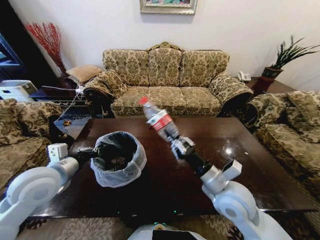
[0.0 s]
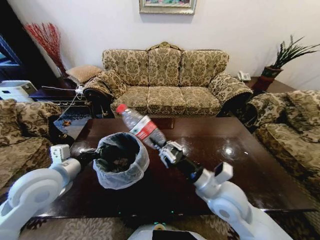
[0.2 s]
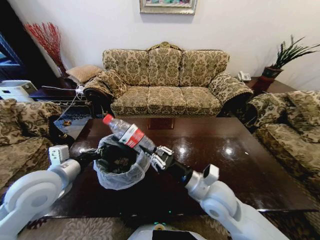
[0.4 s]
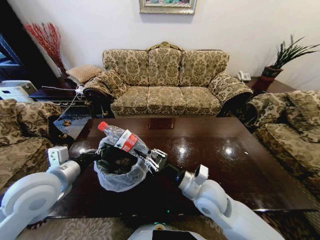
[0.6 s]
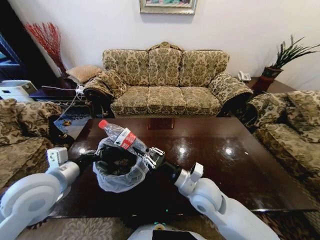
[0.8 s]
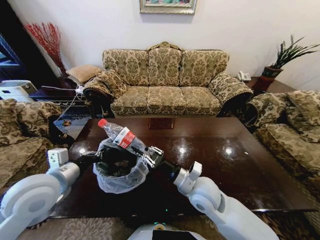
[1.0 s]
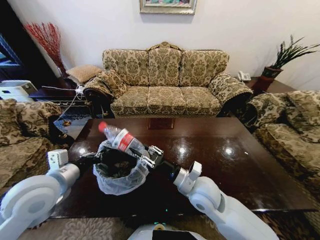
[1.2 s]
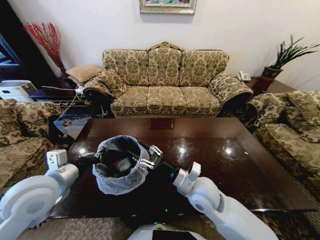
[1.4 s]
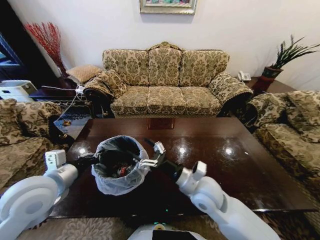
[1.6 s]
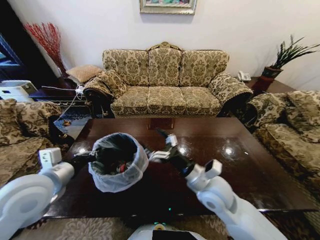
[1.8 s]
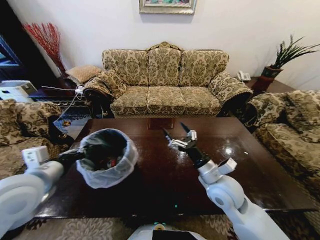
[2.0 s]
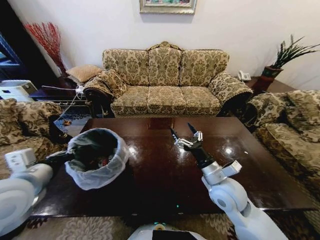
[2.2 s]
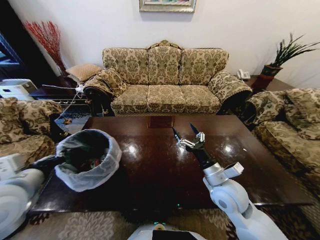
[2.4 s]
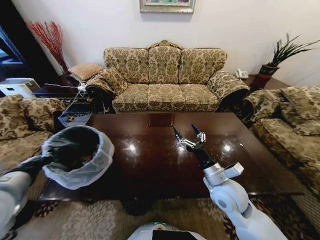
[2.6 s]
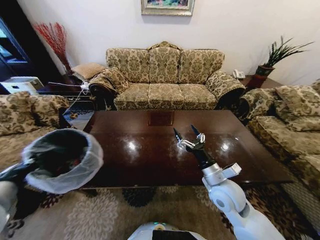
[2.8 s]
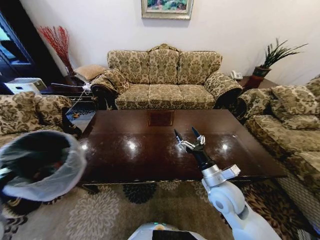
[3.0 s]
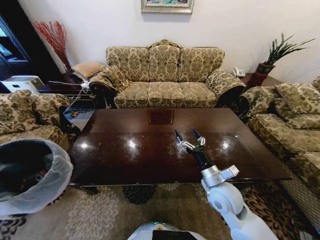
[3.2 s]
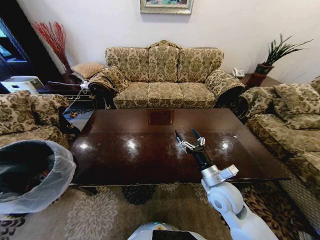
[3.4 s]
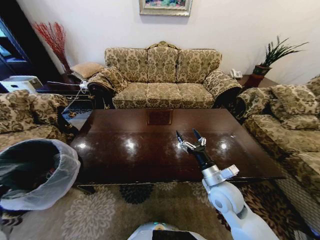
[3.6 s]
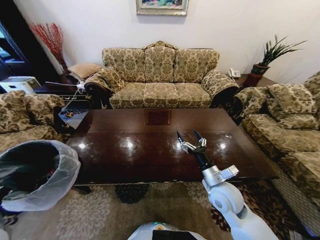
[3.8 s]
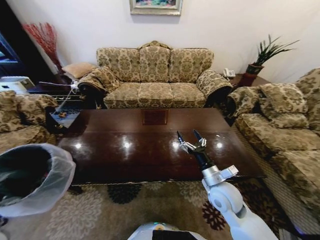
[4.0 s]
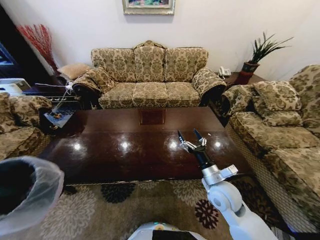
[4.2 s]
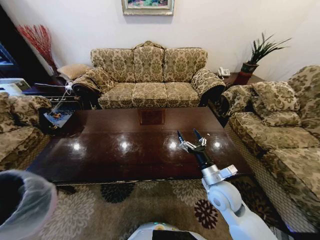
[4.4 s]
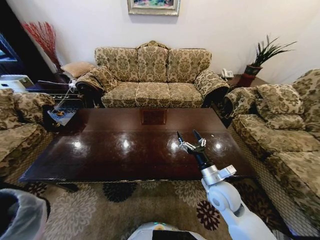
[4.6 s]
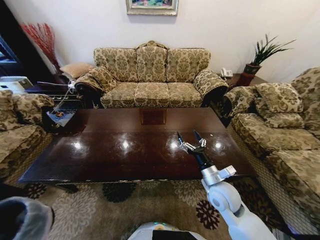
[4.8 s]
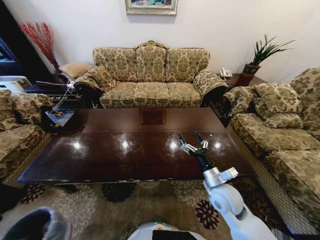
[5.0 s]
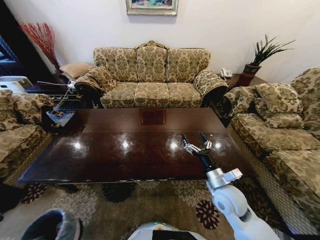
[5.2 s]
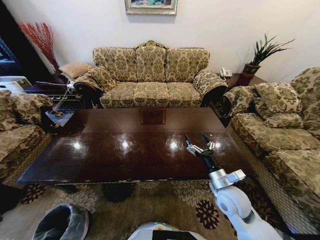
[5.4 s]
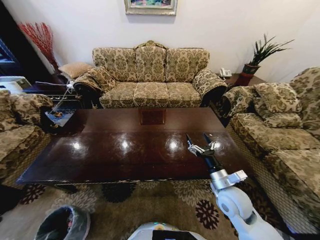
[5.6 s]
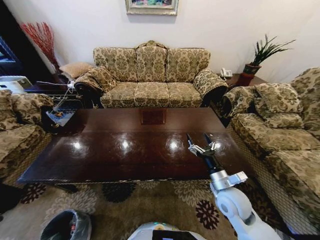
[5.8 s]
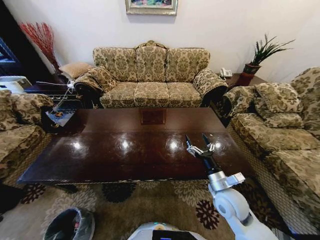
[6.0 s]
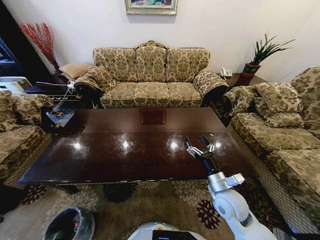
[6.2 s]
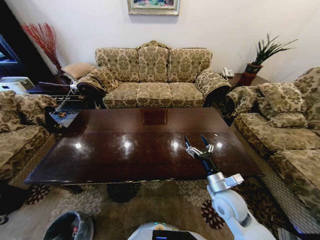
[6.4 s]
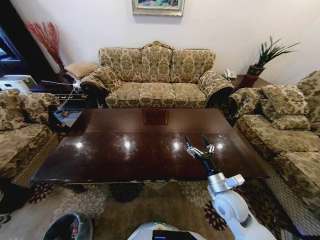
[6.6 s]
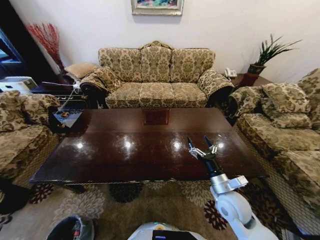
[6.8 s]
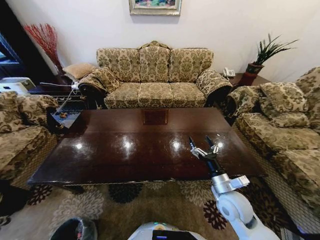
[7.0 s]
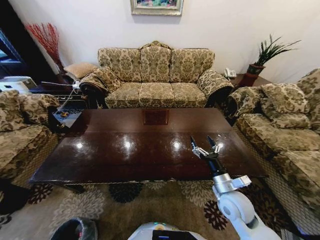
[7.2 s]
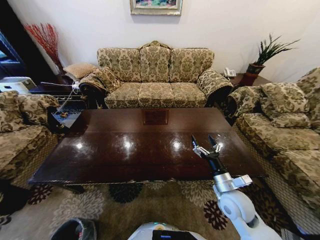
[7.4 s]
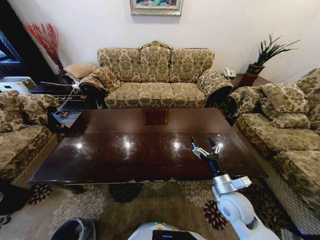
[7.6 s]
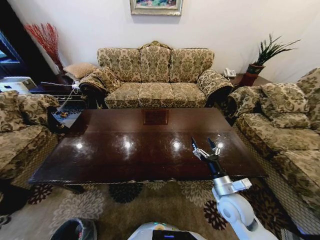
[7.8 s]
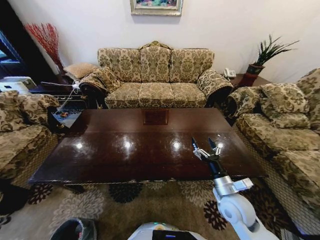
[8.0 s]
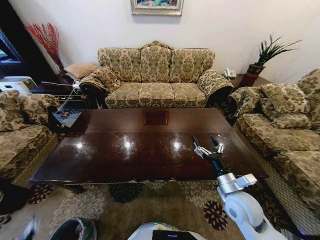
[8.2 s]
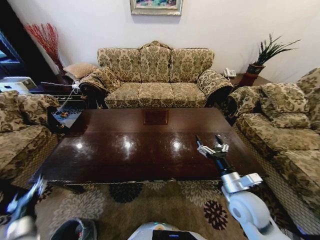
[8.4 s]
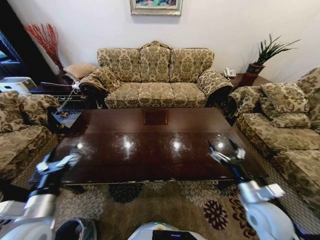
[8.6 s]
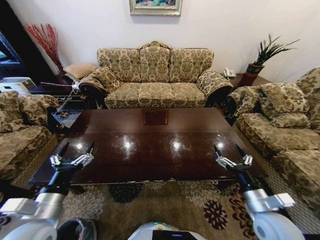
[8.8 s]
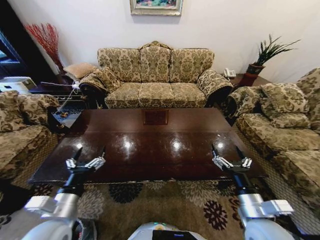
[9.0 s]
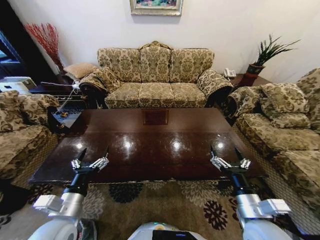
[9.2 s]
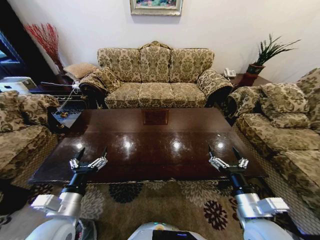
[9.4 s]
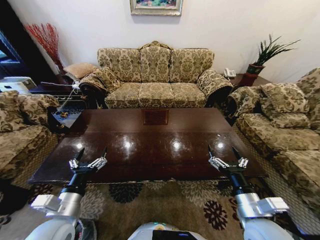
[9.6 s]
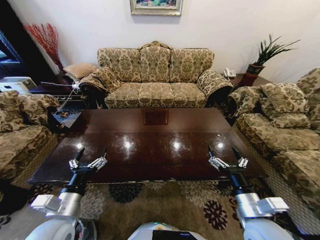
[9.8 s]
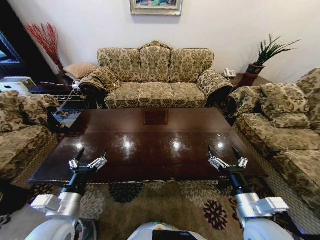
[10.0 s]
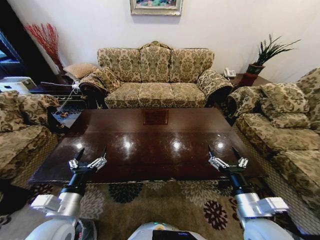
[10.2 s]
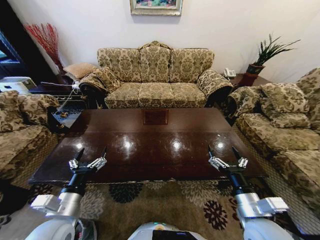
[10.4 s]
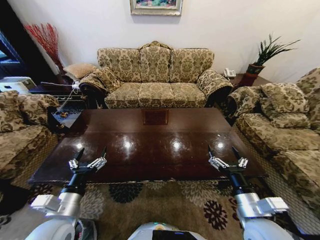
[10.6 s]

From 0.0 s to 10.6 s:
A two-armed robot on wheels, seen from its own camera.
Task of the whole recording: Move to the front of the table and place the trash on the table into the trash bin.
From 0.0 s to 1.6 s: The right gripper heads to the left, covering about 5 cm, and opens up.
From 1.6 s to 3.0 s: The left gripper is displaced backward and to the left by approximately 10 cm; the right gripper moves to the right, some 10 cm.
From 3.0 s to 4.6 s: The left gripper moves downward, to the left and backward, about 20 cm.
From 4.6 s to 6.0 s: The left gripper goes approximately 35 cm downward.
From 6.0 s to 7.6 s: The left gripper travels backward by some 5 cm, and opens.
From 7.6 s to 9.0 s: The right gripper travels backward and upward by about 10 cm, while the left gripper goes about 40 cm upward.
From 9.0 s to 10.6 s: The two grippers keep their place.
